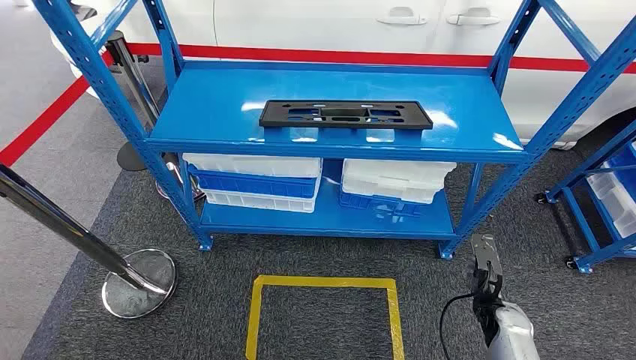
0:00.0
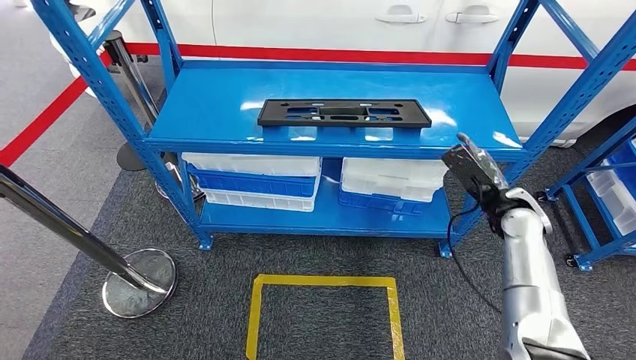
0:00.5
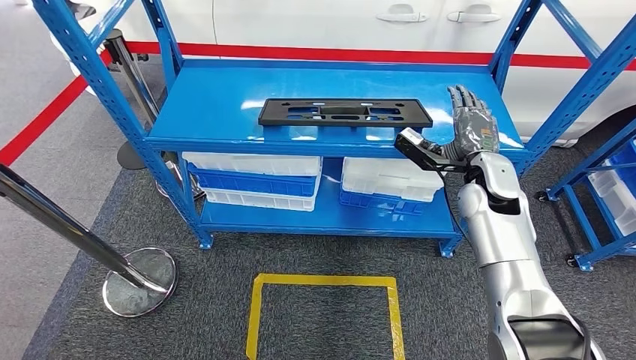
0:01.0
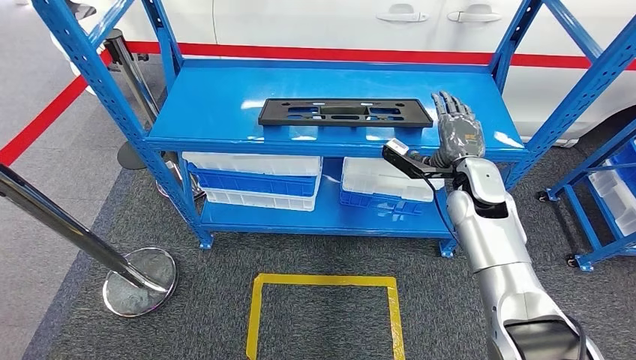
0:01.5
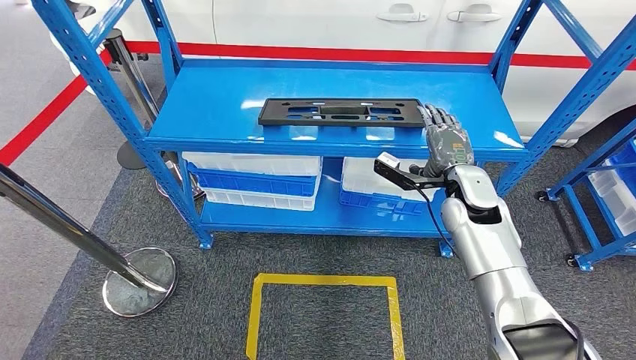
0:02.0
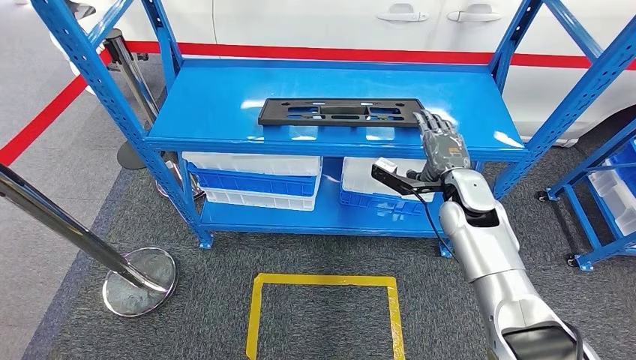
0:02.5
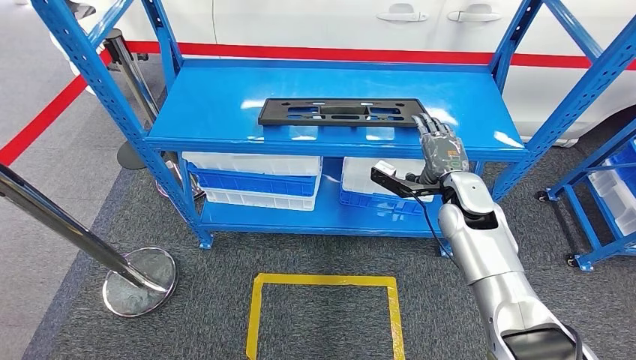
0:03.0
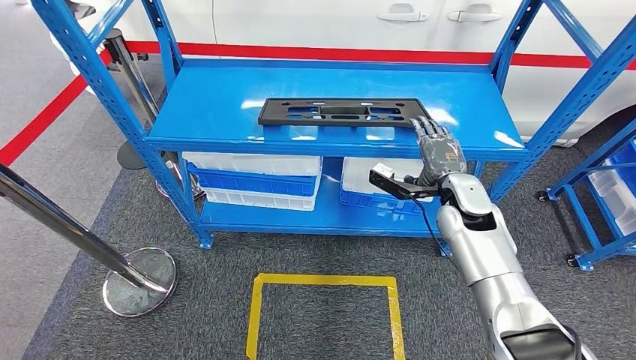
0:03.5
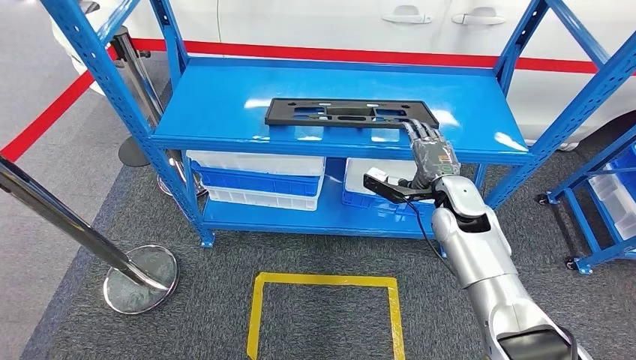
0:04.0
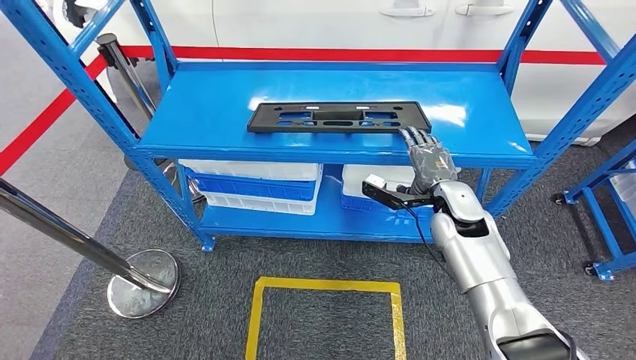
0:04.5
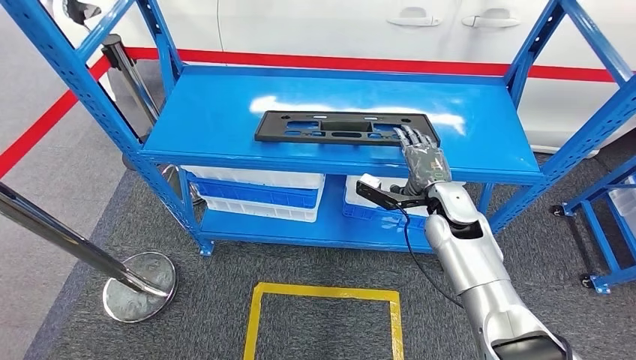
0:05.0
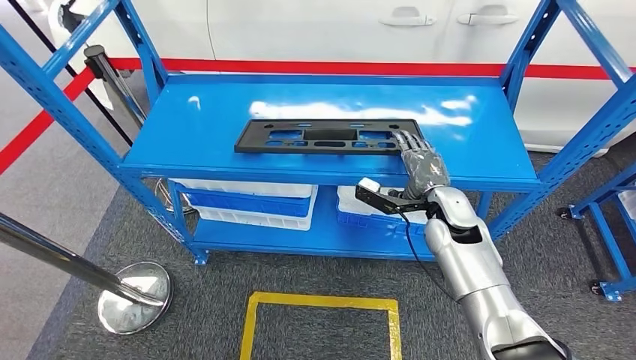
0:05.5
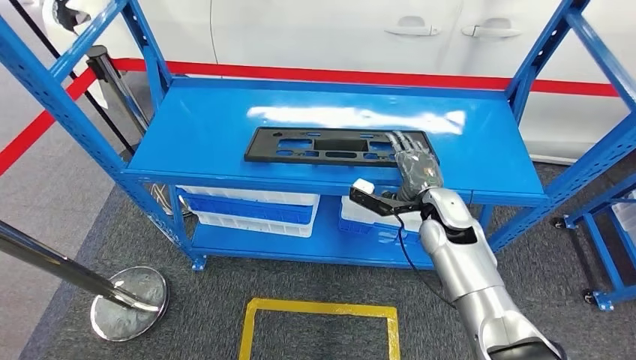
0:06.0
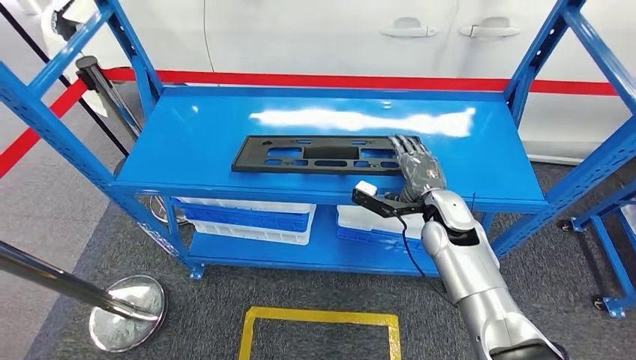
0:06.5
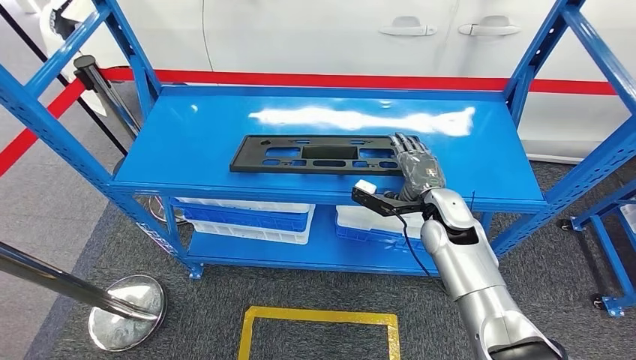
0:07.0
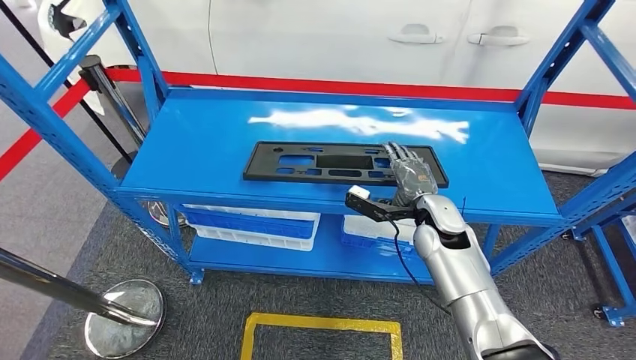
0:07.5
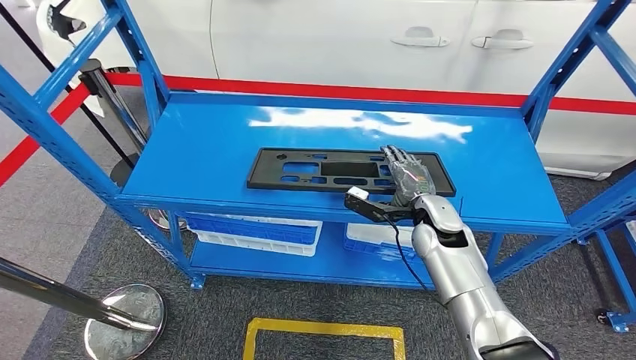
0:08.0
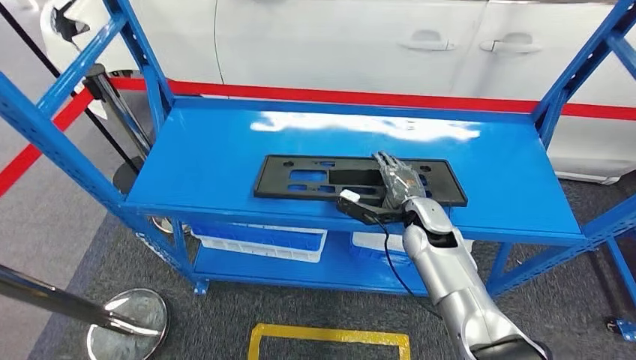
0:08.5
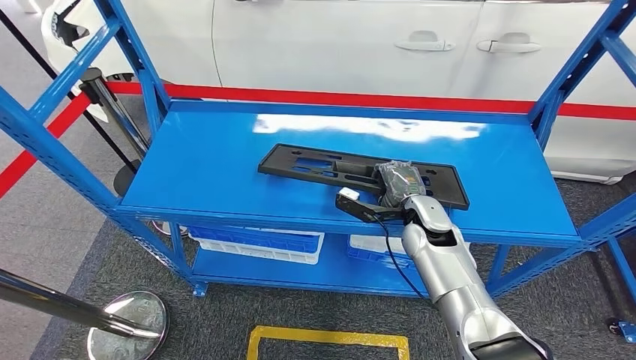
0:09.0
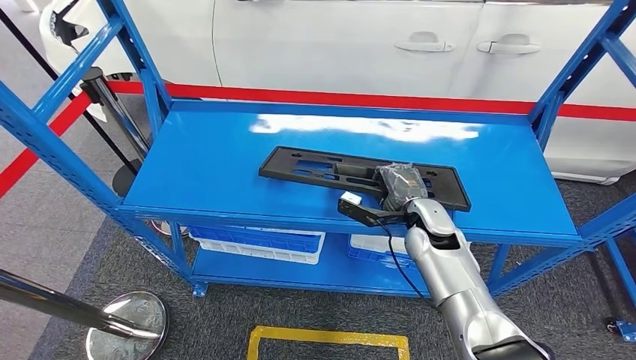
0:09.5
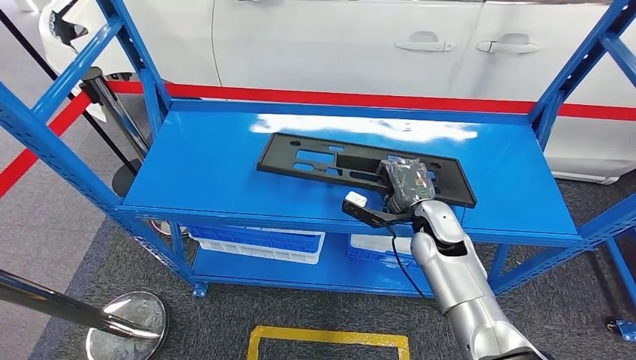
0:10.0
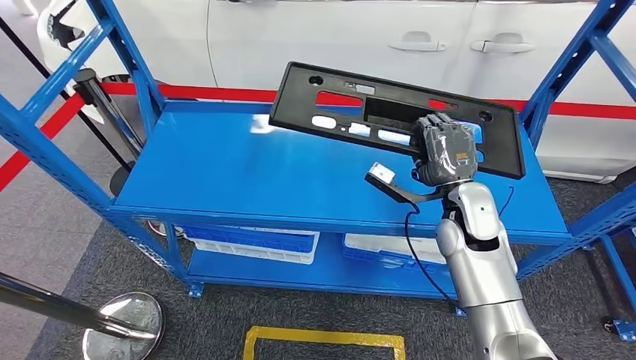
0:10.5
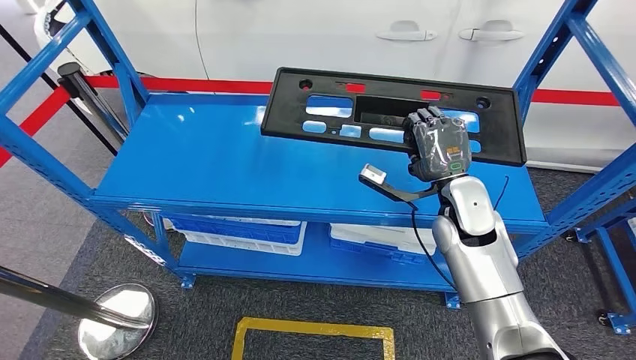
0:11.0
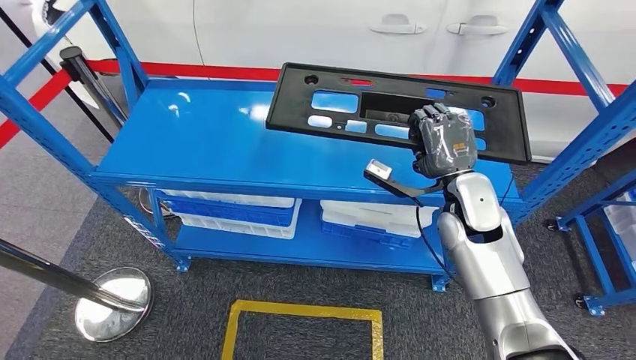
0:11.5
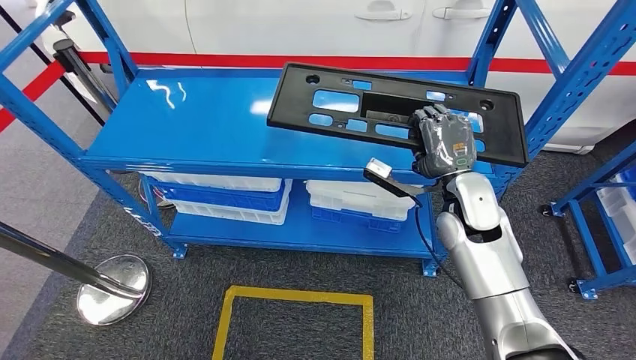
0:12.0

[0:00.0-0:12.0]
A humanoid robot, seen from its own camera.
0:02.0 to 0:04.0: The hands make only small movements.

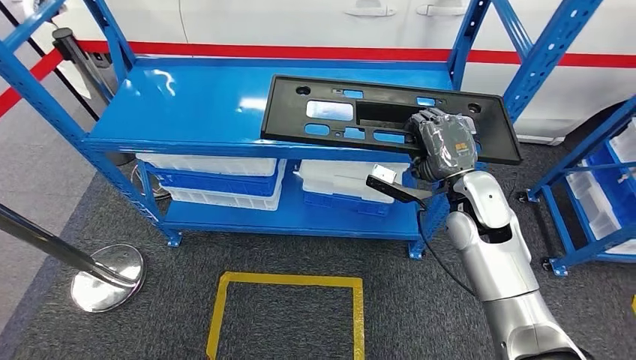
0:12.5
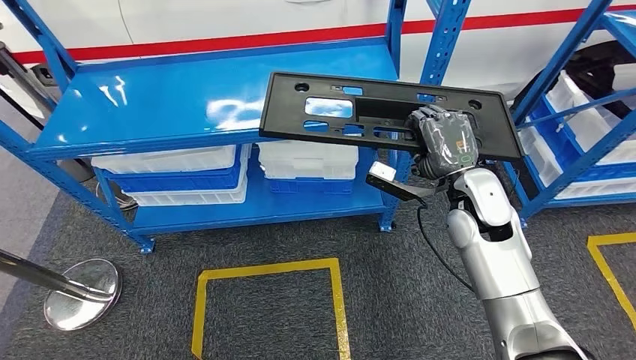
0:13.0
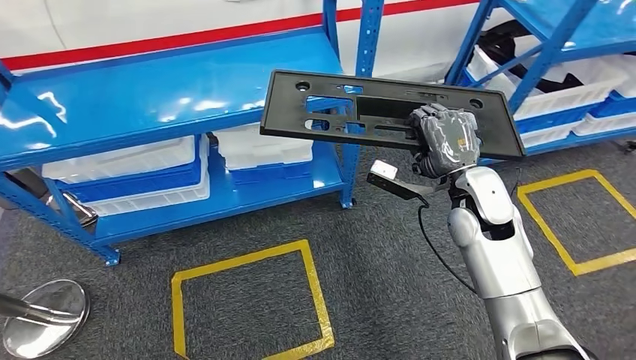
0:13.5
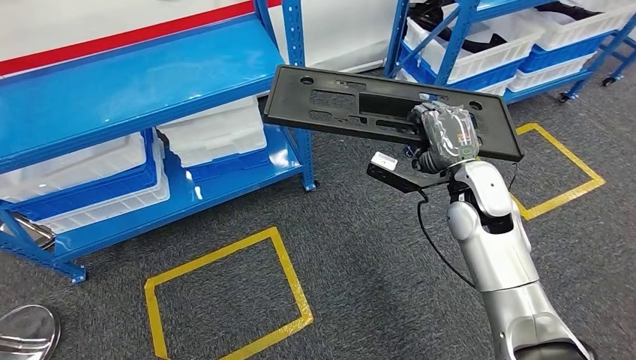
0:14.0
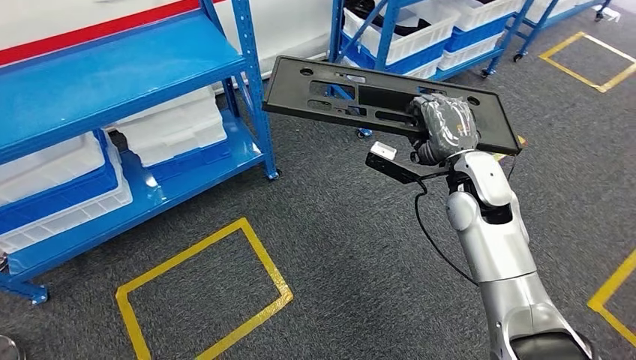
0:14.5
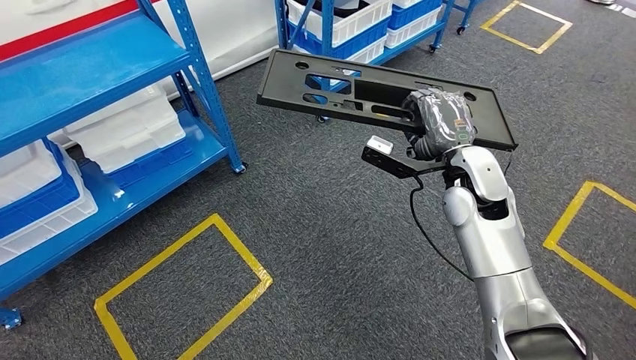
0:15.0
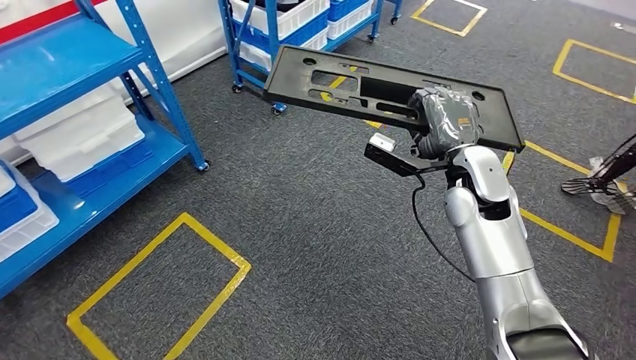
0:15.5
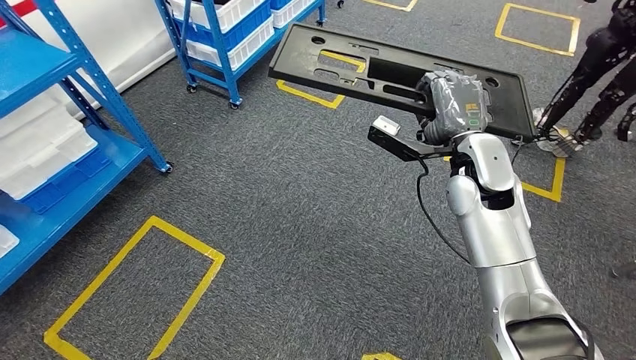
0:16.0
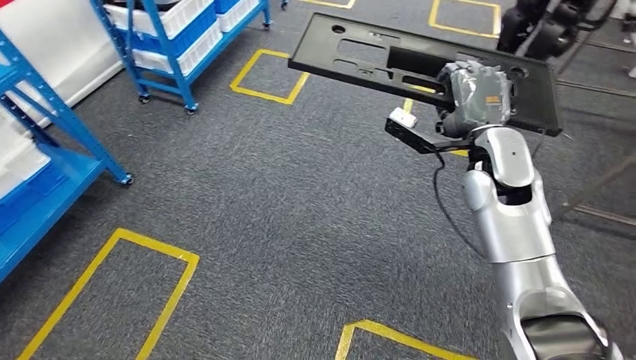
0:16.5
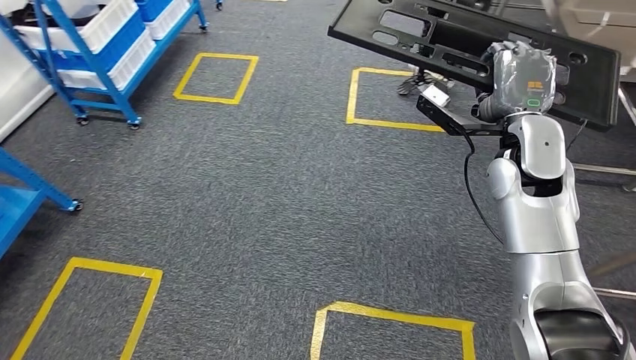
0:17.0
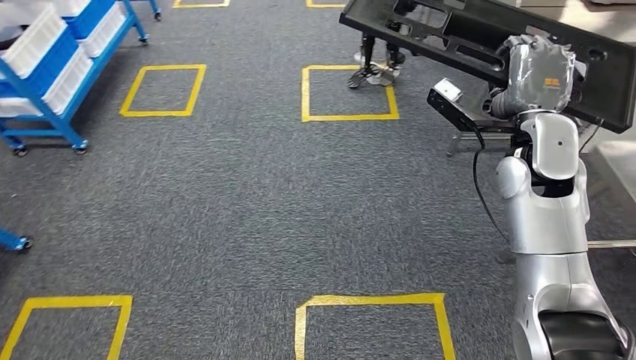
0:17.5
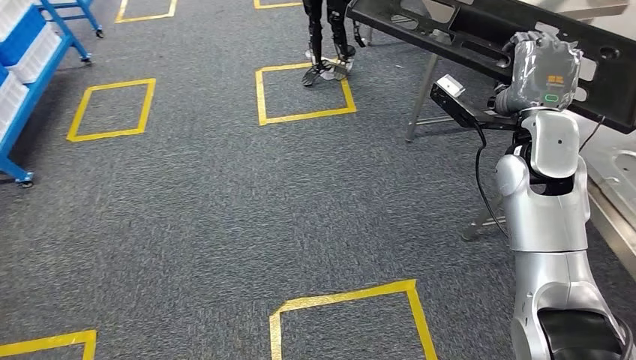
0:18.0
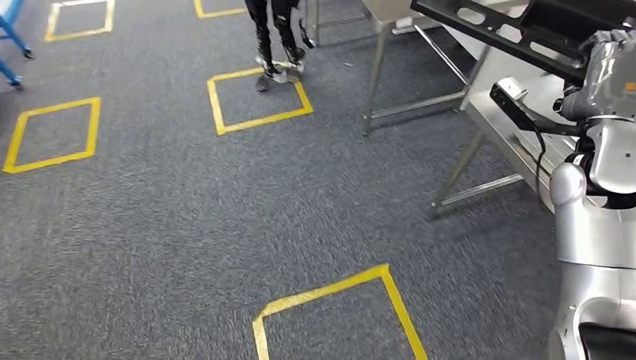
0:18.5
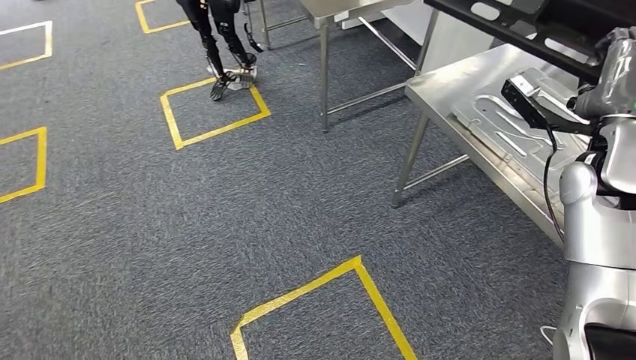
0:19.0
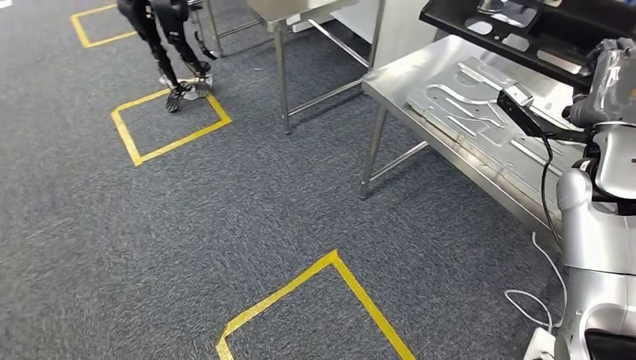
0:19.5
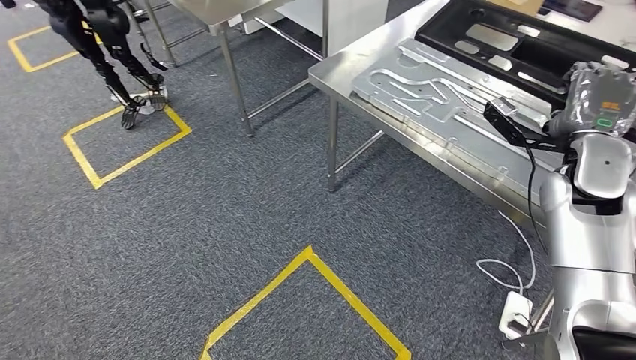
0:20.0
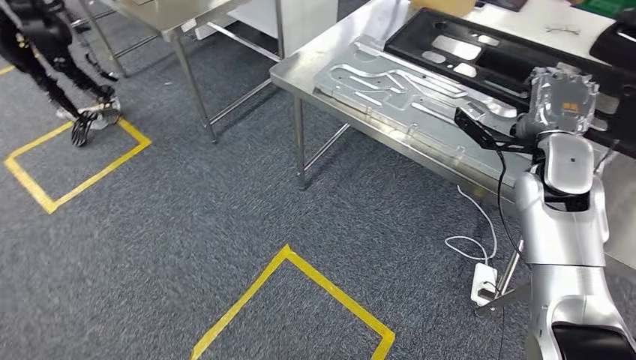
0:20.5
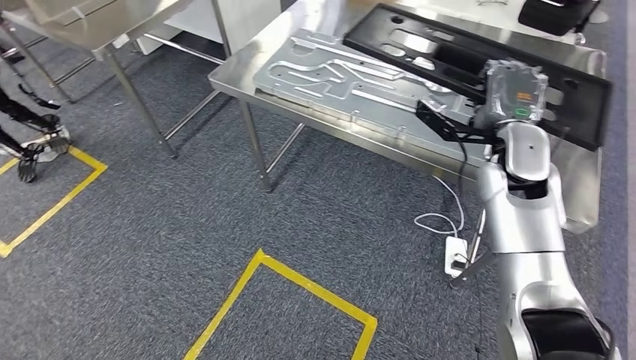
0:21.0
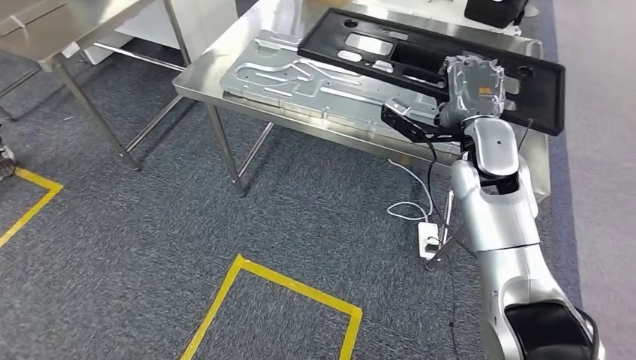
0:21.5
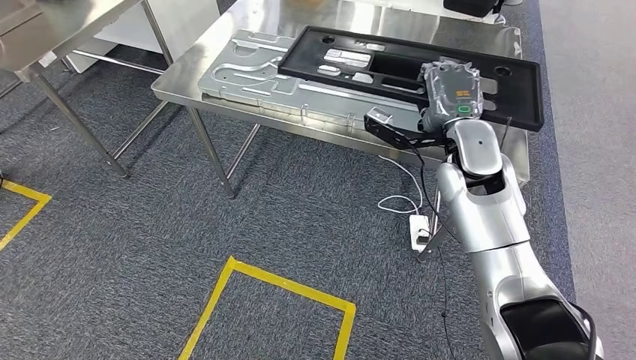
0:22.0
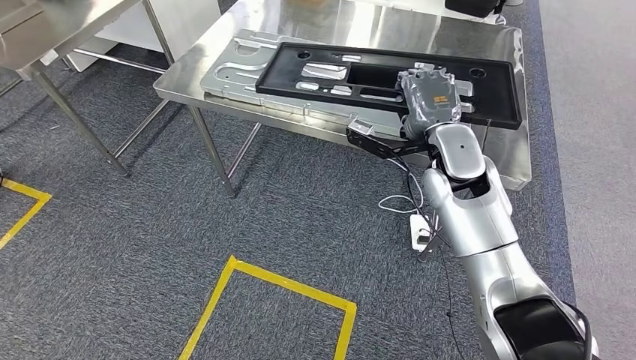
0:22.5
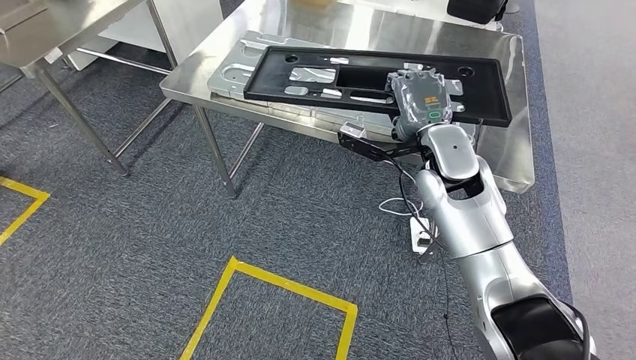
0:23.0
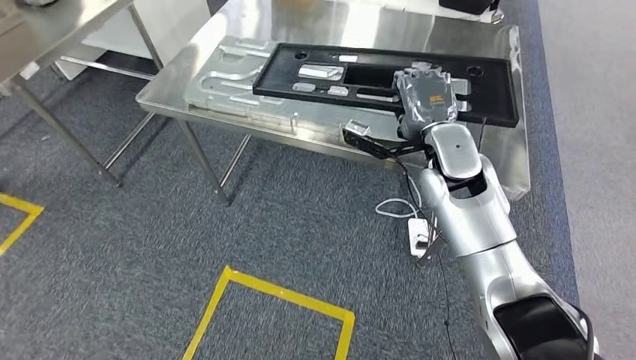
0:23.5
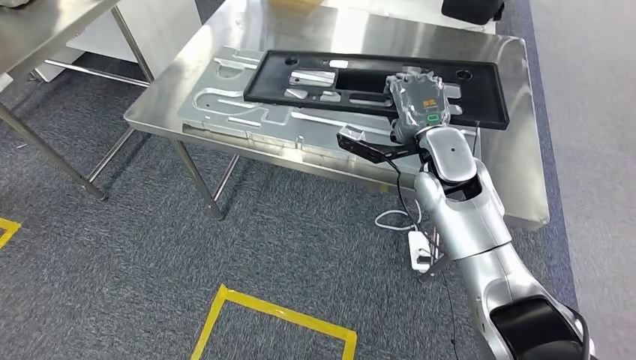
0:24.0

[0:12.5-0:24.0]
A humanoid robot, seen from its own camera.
Step, 0:13.0 to 0:23.5: Move the large material to the workbench.
